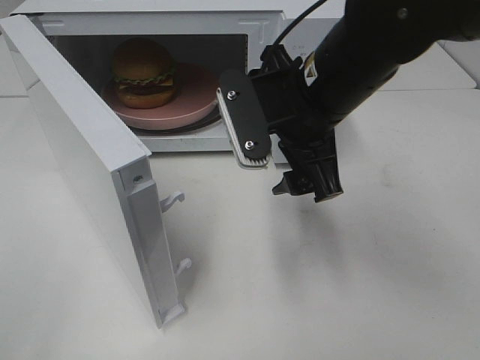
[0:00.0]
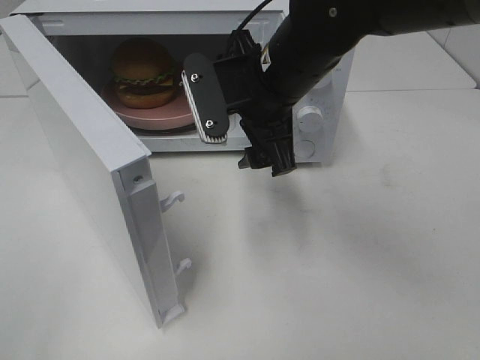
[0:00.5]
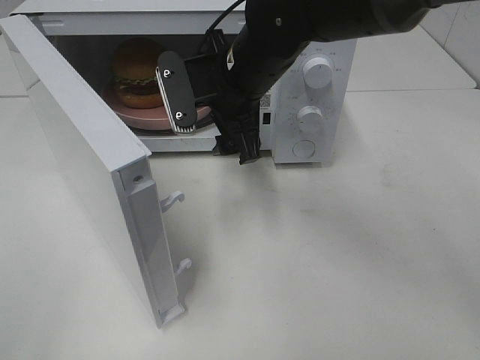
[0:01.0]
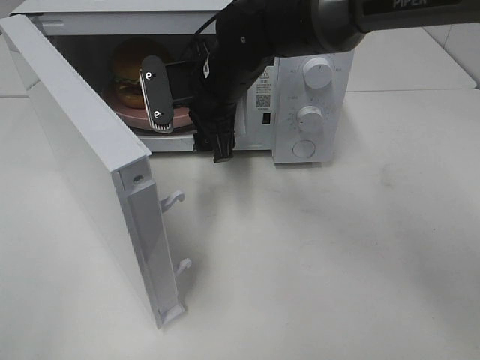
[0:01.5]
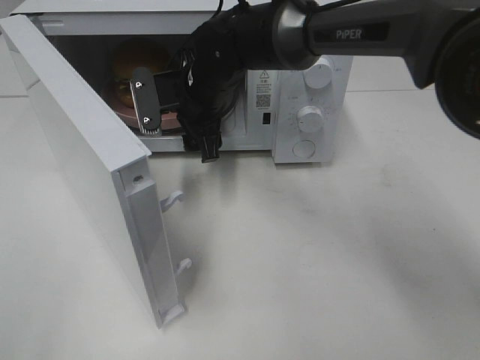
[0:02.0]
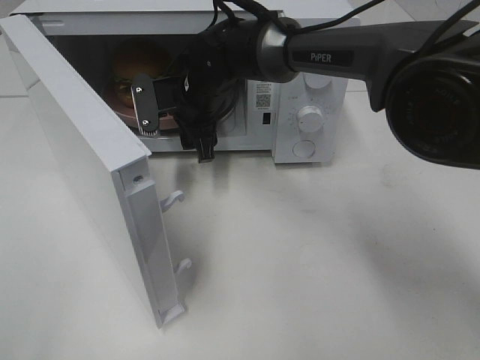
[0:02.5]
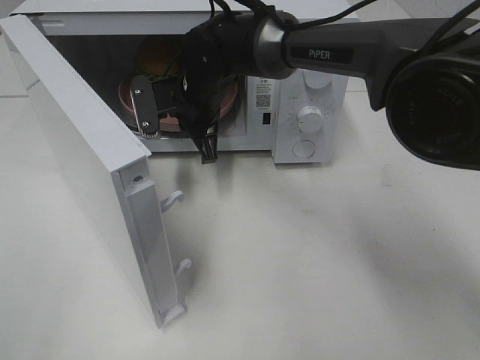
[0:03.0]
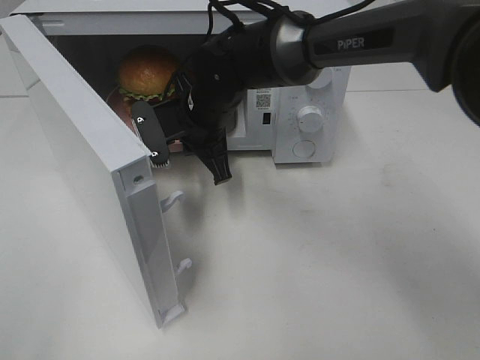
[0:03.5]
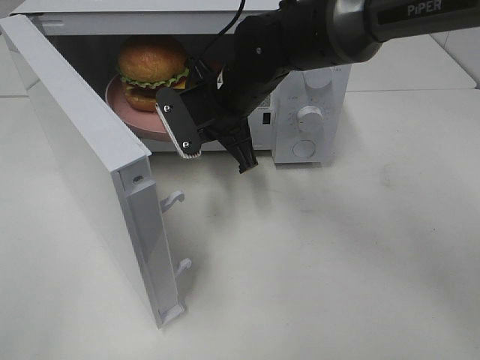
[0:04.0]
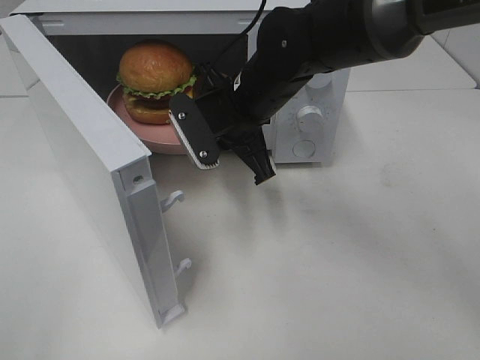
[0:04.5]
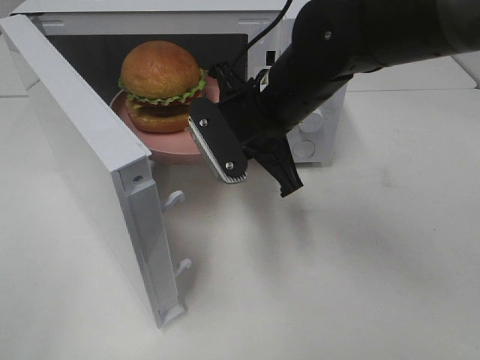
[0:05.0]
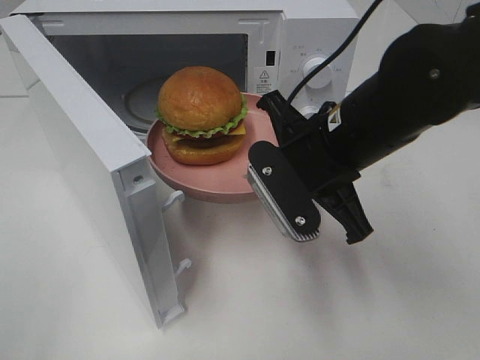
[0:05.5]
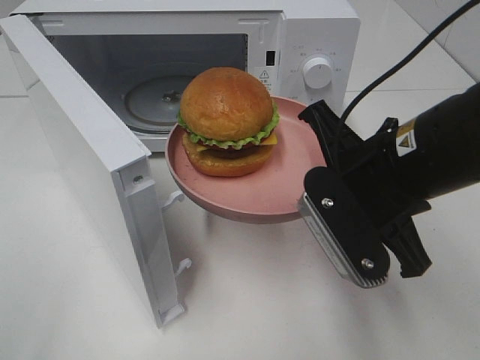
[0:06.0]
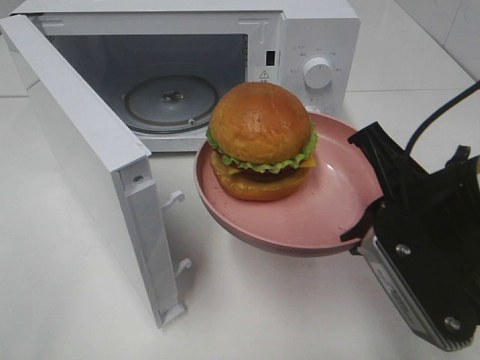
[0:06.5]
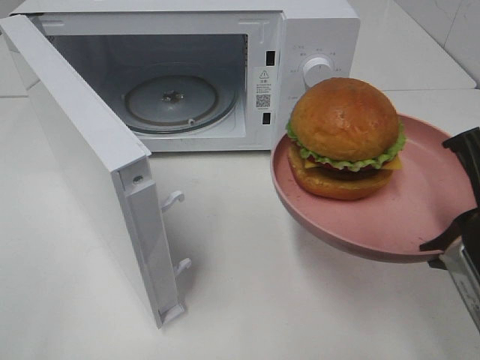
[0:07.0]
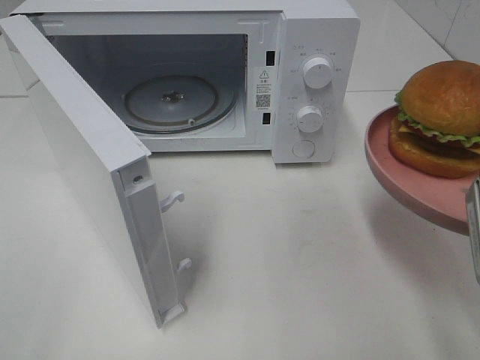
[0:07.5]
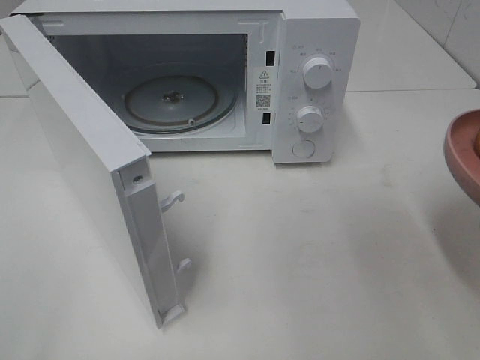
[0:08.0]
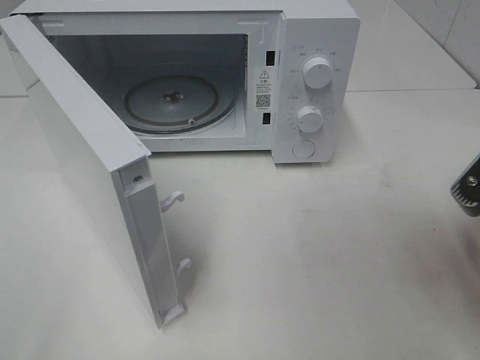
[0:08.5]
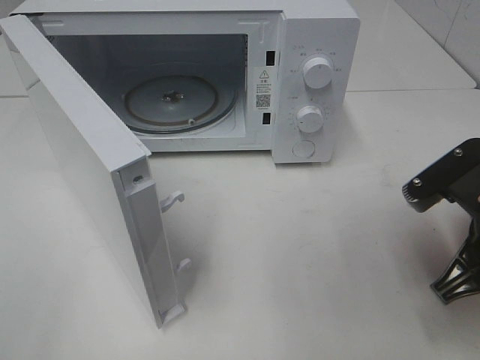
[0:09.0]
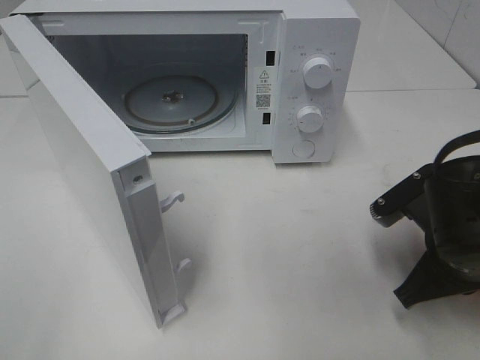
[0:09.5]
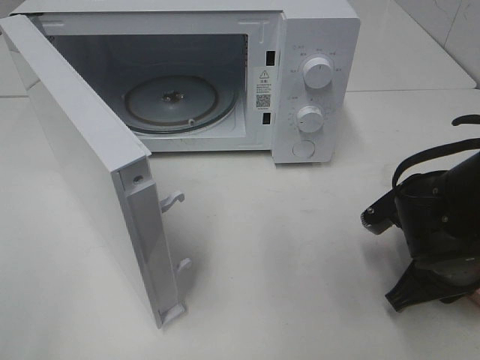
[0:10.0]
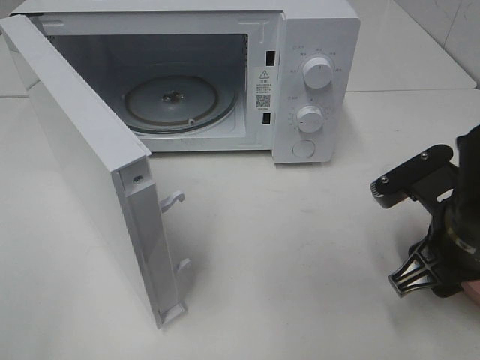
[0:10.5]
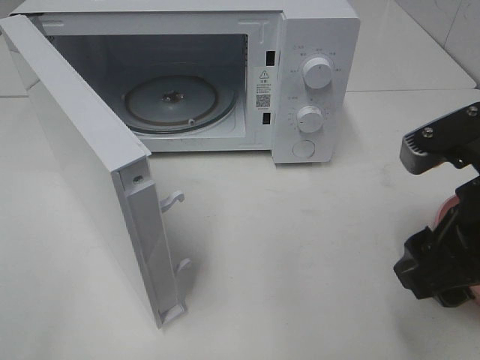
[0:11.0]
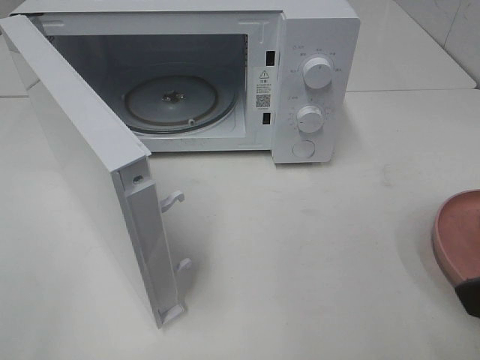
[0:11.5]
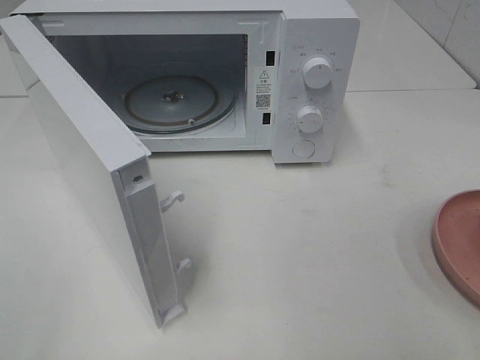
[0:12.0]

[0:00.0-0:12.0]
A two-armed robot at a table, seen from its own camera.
Task of the whole recording: Heat the burger.
Step, 0.0 to 2.5 s: Right hand: grab the plate with the hamburger.
Step, 3.0 to 10.0 s: Right hand: place the plate on the table.
0.0 to 2.0 s: The right gripper heads forward, to the left and downward, covering approximately 20 cm.
2.0 to 4.0 s: The right gripper changes place by some 5 cm, and closes.
4.0 to 6.0 s: The right gripper is displaced backward and to the right by approximately 20 cm.
6.0 to 8.0 s: The right gripper is displaced to the right and backward by about 15 cm.
8.0 to 10.0 s: The right gripper moves downward and forward, roughly 15 cm.
10.0 to 12.0 s: The right gripper goes some 25 cm upward and backward, and opens.

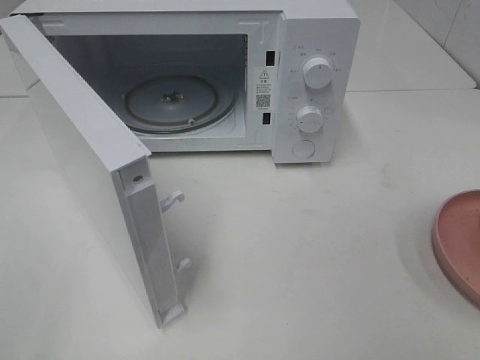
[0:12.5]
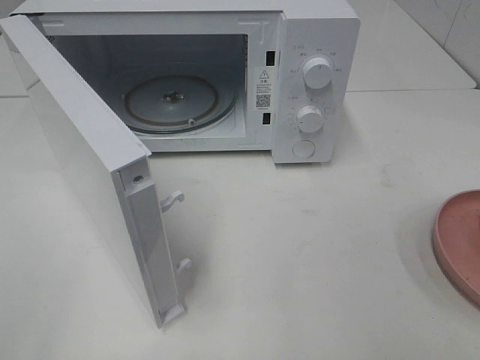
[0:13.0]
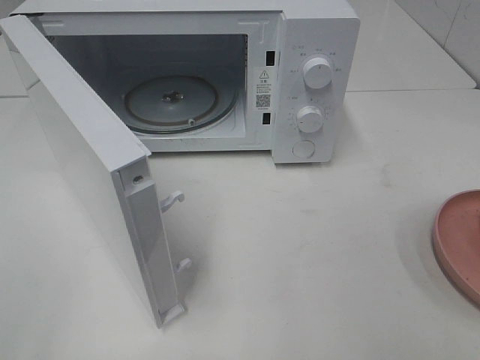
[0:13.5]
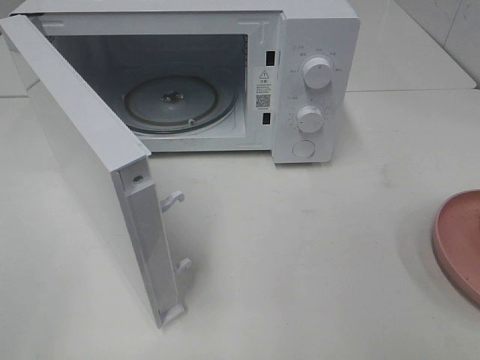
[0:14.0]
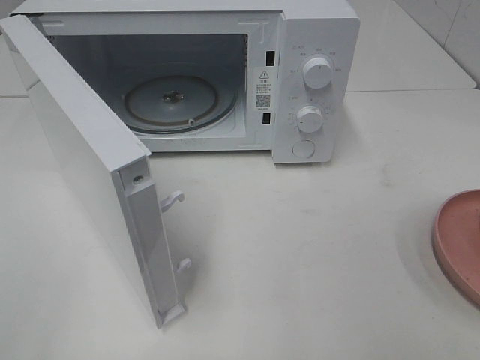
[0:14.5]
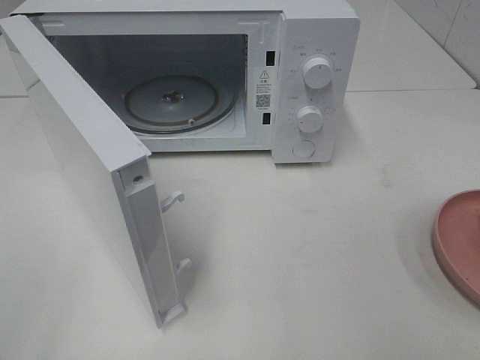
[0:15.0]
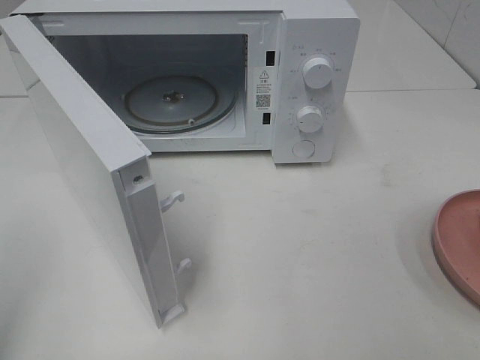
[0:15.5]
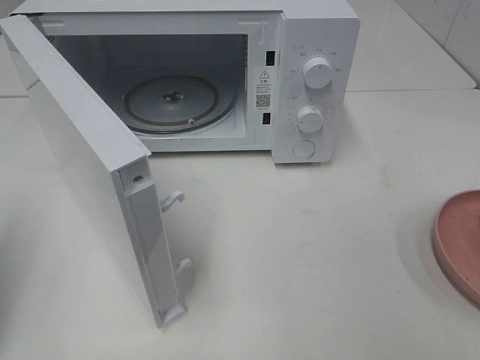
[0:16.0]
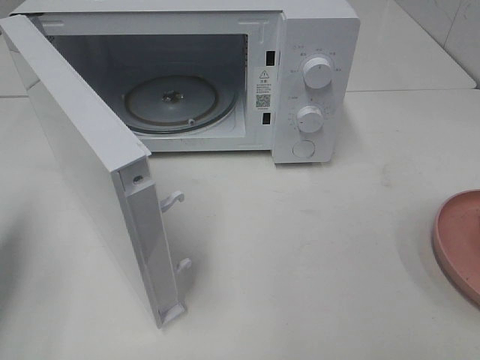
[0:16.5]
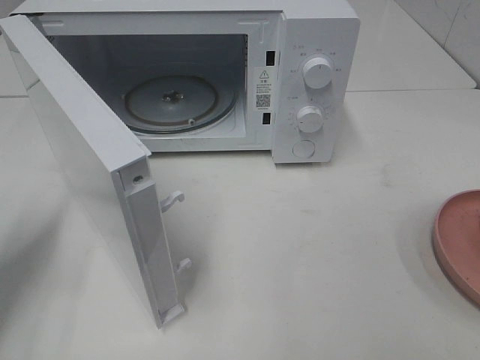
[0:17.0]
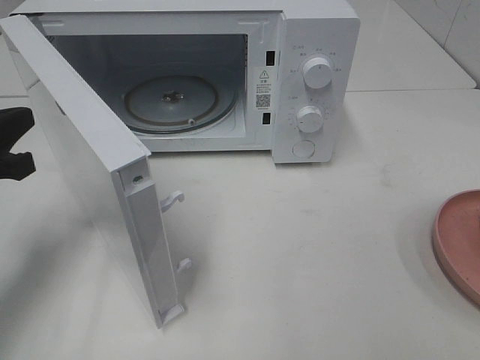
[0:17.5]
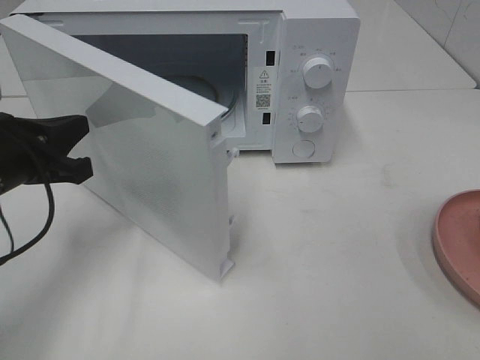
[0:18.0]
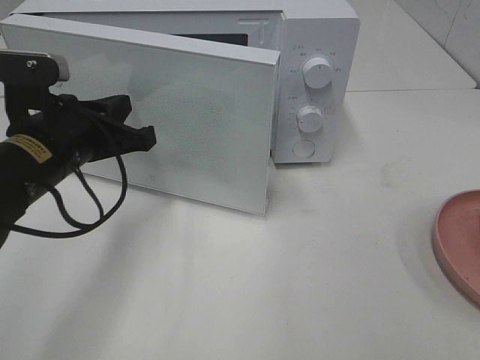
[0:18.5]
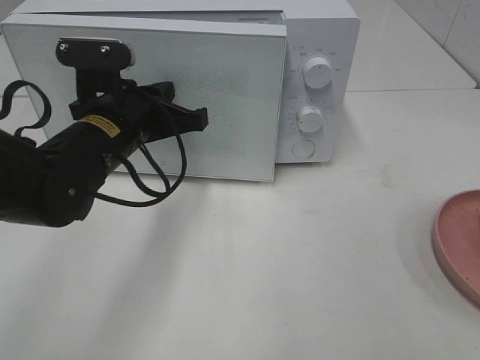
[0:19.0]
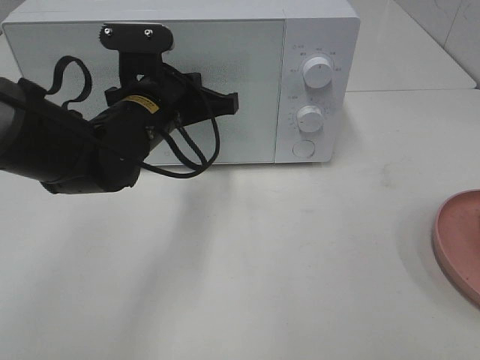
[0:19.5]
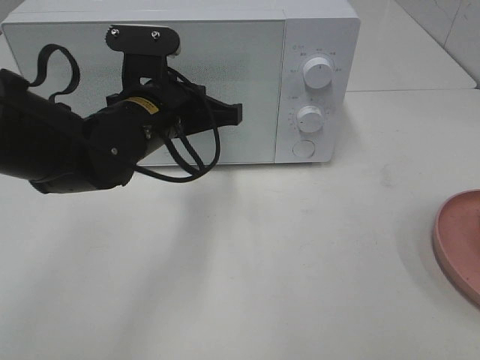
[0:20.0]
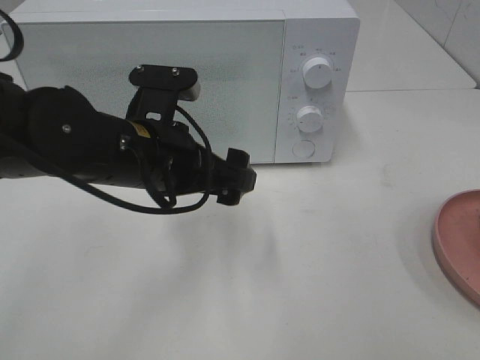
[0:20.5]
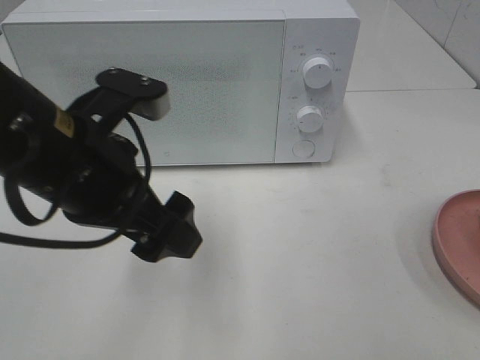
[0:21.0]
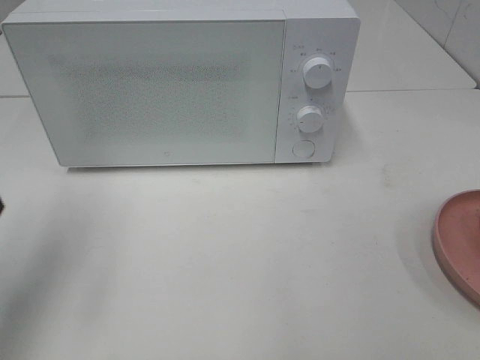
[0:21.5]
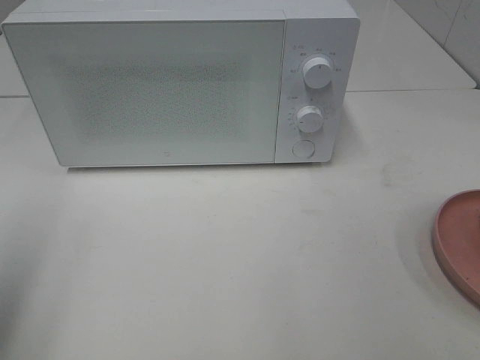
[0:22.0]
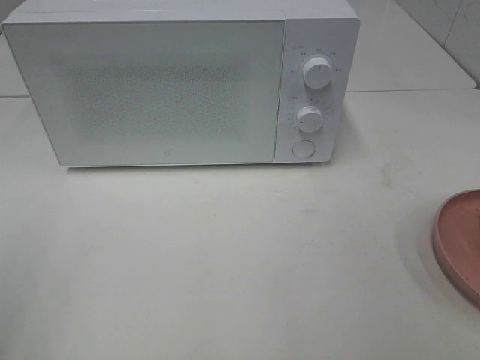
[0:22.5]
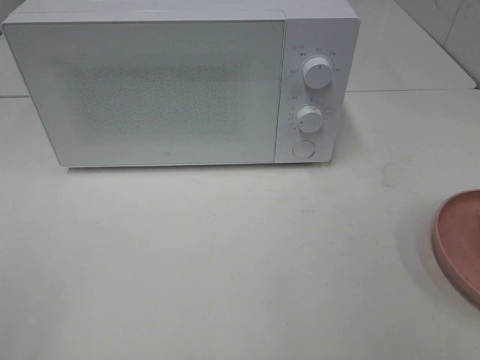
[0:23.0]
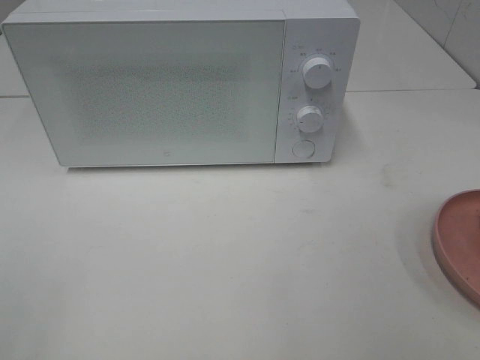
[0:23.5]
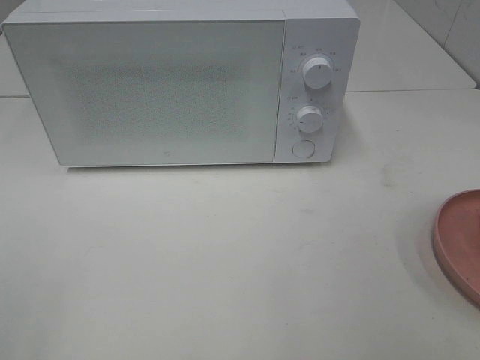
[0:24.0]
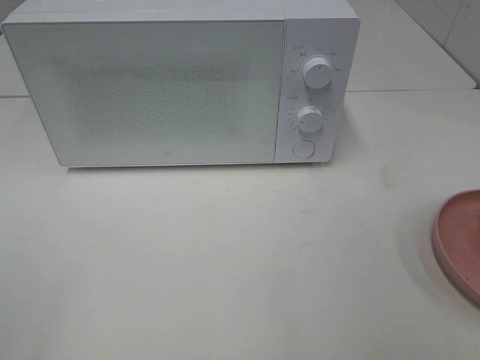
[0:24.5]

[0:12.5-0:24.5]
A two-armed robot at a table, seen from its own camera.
Task of the whole recording: Heat the burger.
Step, 12.5 to 20.0 s: Left hand: close the microwave door.
14.5 to 16.5 s: The left gripper goes some 20 cm forward, and closes.
16.5 to 18.5 s: The left gripper heads to the right and forward, covering some 20 cm.
18.5 to 20.5 s: The left gripper moves to the right, some 10 cm, and opens.
20.5 to 22.5 s: The left gripper travels to the left, backward and upward by roughly 35 cm.

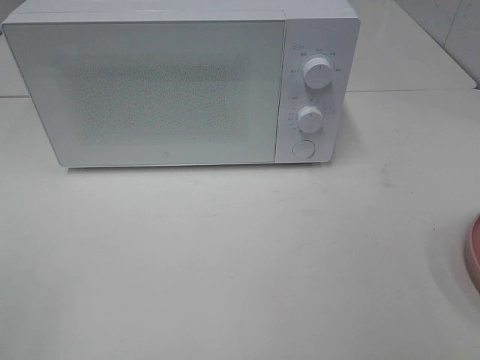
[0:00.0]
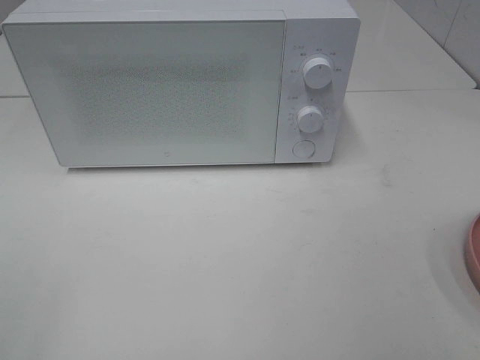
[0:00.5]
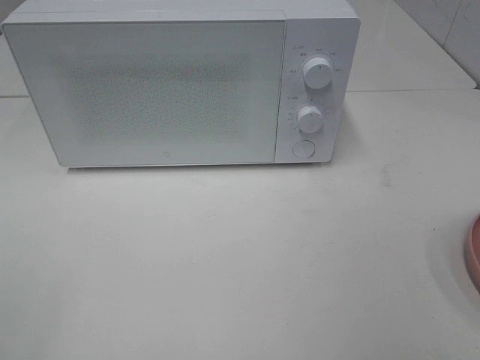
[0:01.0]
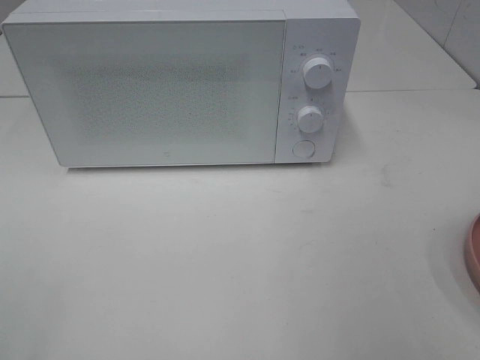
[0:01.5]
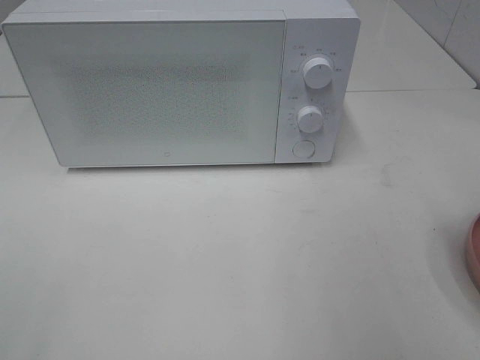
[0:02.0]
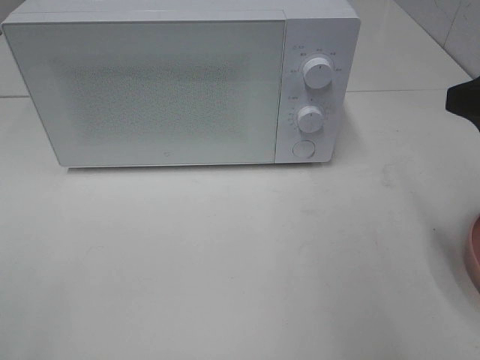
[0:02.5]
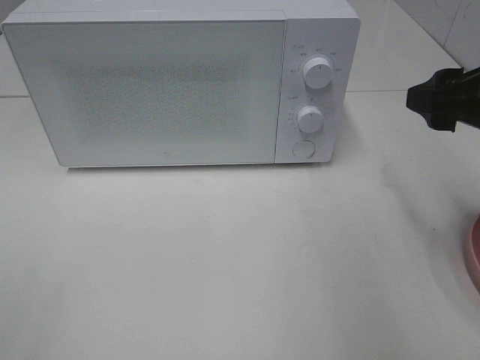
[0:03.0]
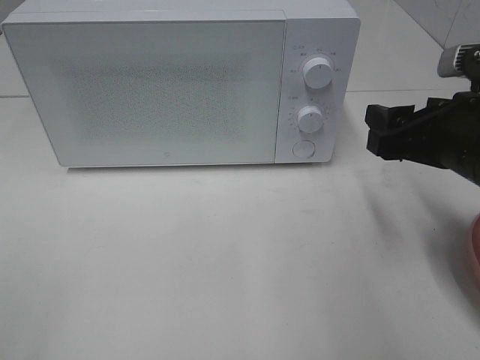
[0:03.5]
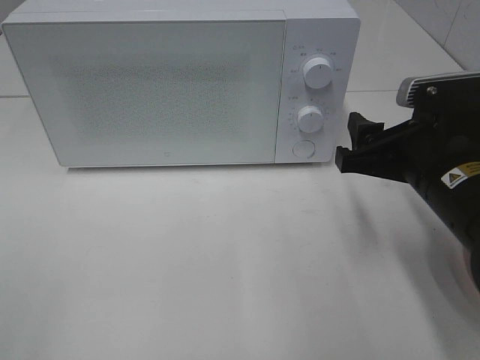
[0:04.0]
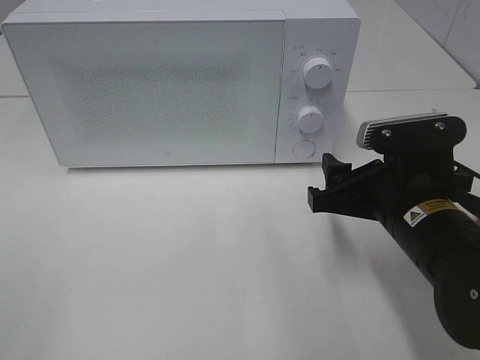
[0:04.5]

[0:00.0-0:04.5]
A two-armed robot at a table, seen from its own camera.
Task of the whole recording: Heat the burger.
2.0 to 4.5 s: The right gripper moves downward, to the left and forward, about 20 cm.
